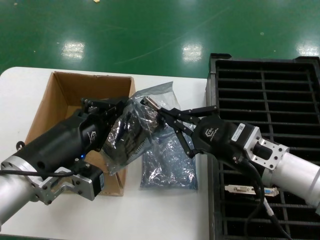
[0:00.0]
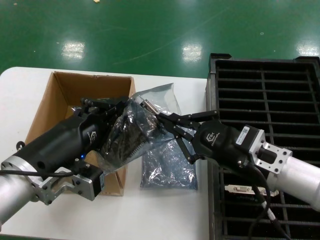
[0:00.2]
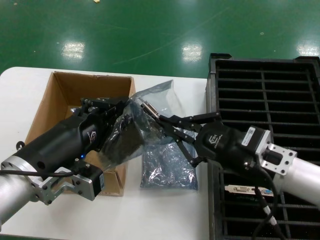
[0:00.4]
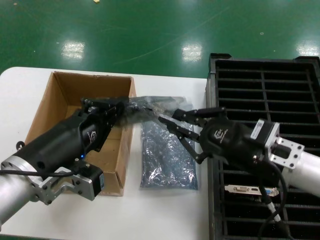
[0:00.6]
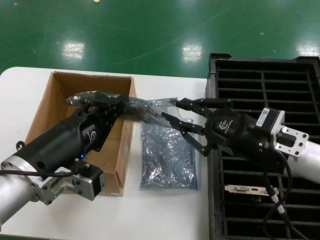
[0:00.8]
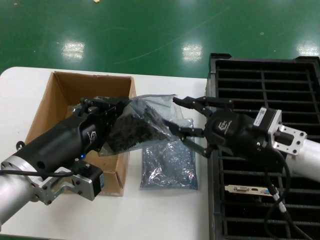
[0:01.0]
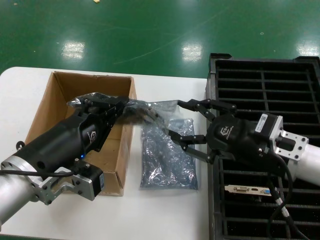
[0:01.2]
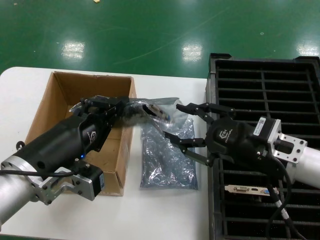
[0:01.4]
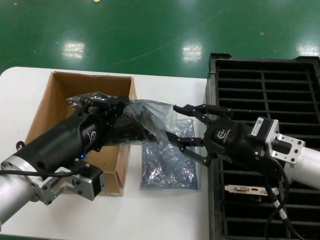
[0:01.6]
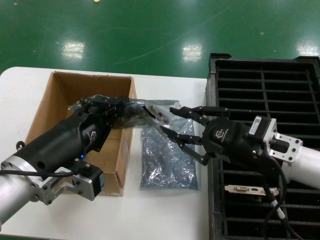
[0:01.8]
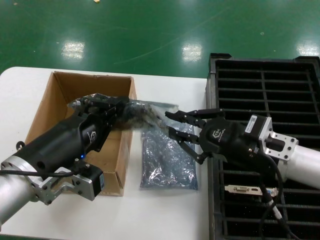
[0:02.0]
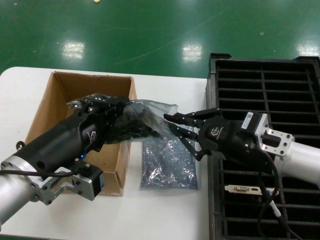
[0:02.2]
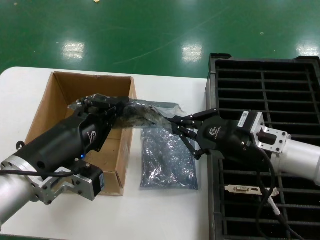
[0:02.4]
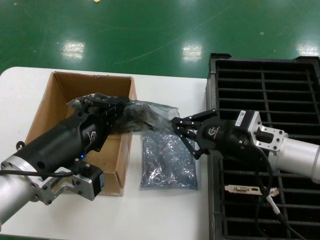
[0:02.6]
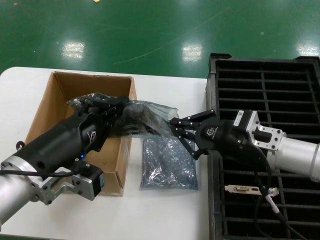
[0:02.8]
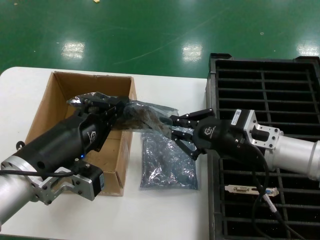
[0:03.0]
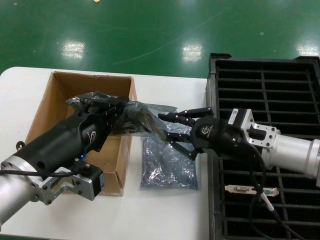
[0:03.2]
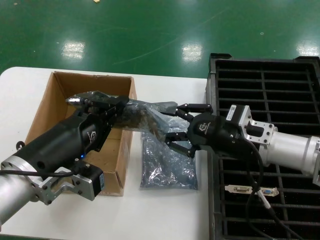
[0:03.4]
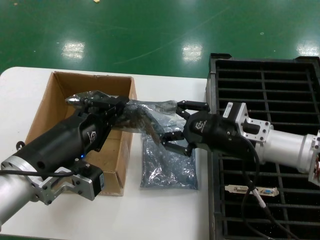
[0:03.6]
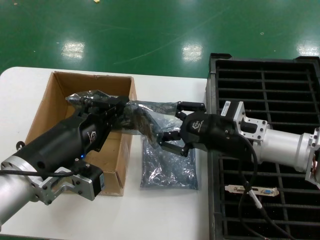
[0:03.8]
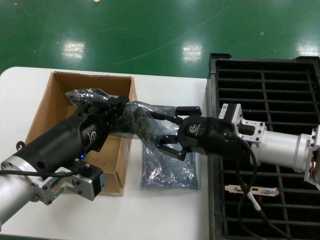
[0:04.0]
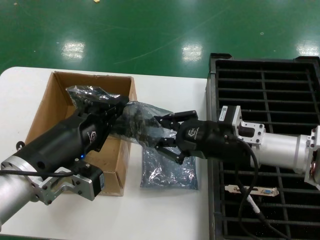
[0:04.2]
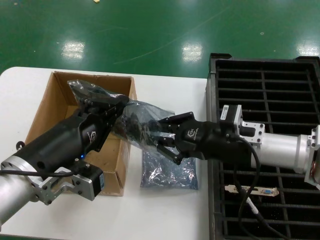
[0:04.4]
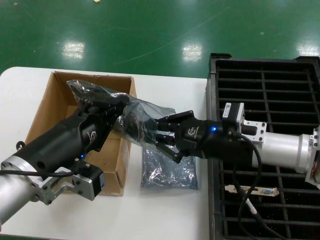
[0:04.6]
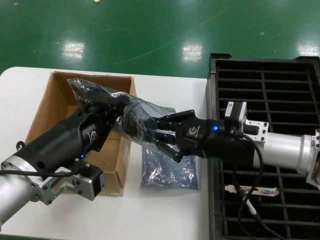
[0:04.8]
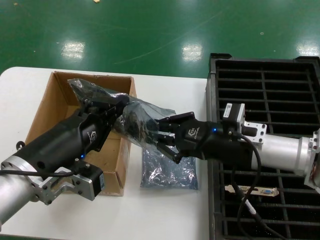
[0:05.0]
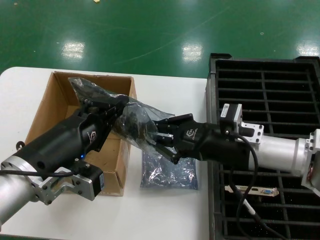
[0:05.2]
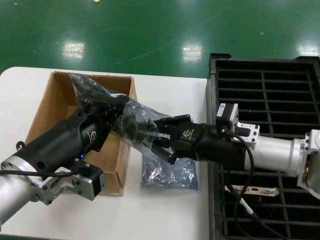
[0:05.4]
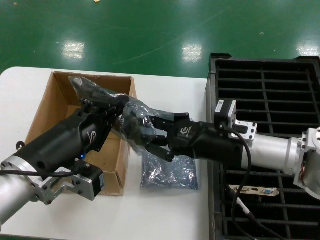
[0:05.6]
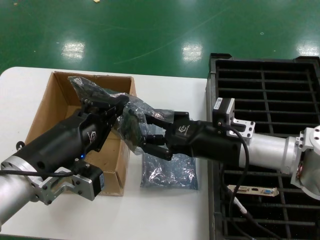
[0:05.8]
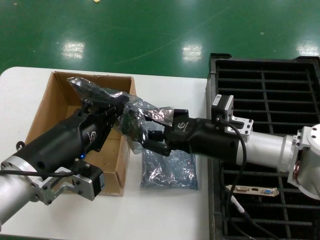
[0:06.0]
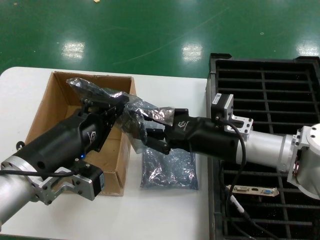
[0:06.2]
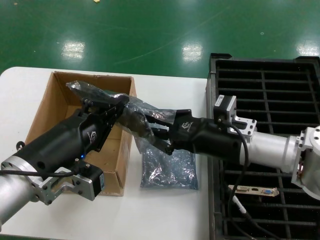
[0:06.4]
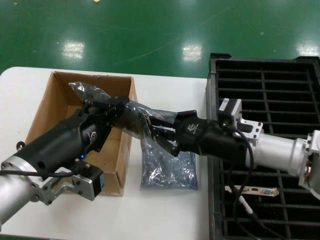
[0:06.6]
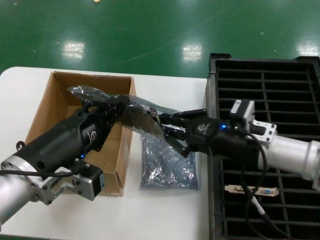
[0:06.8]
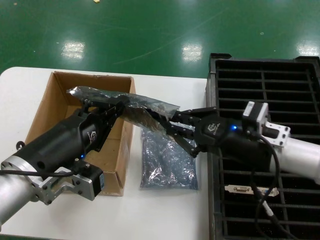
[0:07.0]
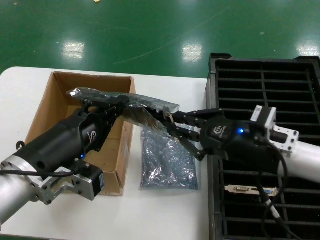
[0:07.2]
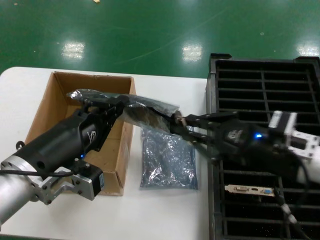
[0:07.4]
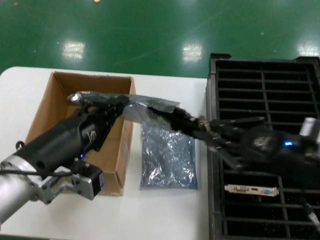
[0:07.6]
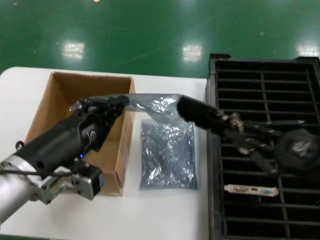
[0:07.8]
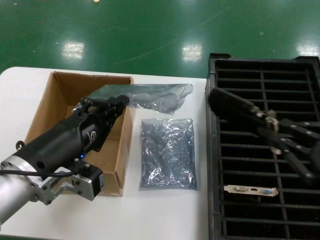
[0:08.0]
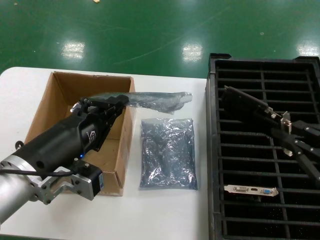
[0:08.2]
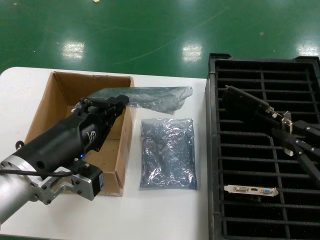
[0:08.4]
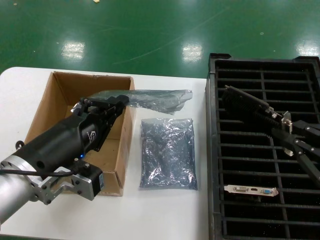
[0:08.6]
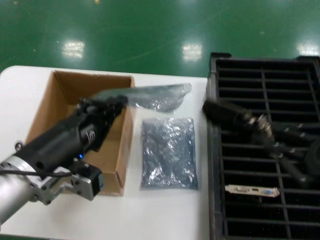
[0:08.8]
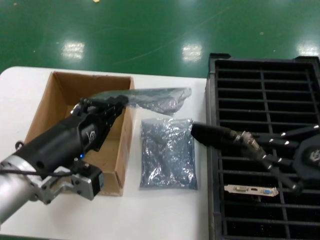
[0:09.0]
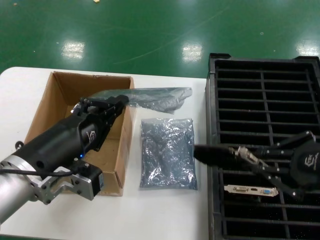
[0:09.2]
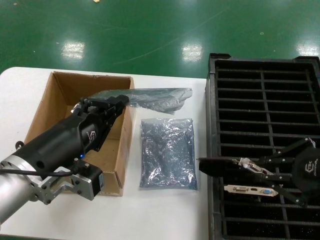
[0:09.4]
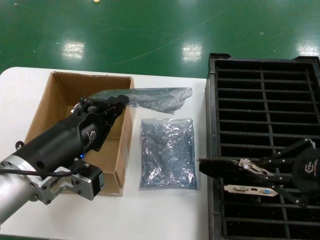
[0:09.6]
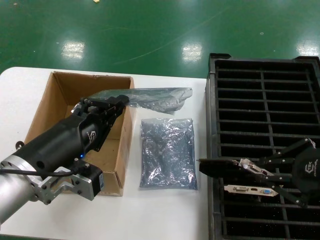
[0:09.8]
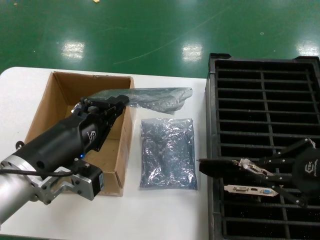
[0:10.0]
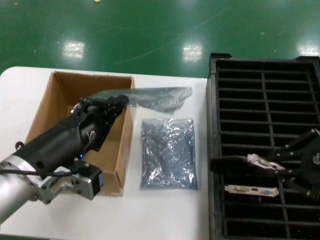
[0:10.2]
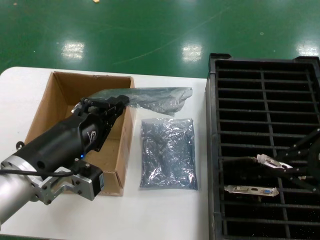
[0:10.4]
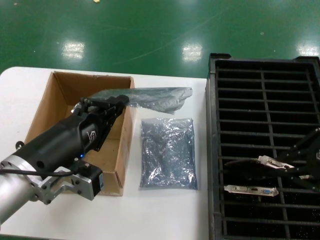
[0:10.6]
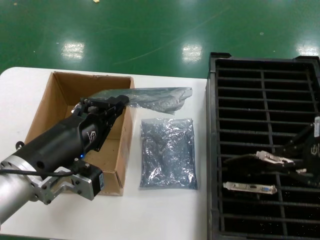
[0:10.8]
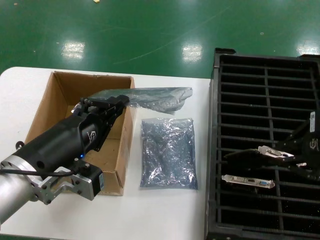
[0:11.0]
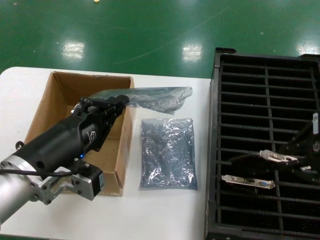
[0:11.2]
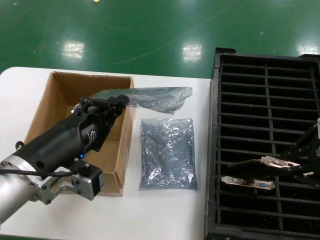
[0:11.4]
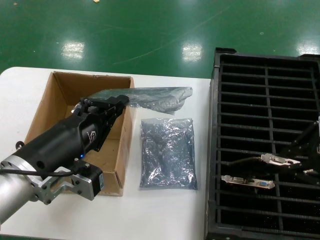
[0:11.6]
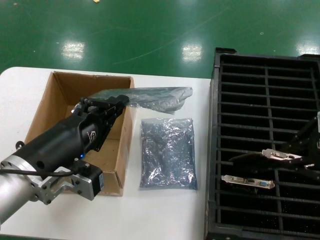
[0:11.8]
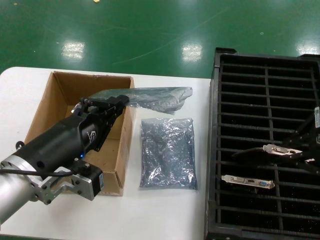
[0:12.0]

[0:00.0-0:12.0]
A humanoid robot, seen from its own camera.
Task of the whole recording: take out graphics card from box remove packaging put into black container.
Step, 0:00.0 to 0:07.8: Take out the hard disk of the bag.
0:00.0 to 0:01.6: The hands make only small movements.
0:01.6 to 0:03.0: The right hand ends up roughly 5 cm from where it was.
0:03.0 to 0:04.4: The hands make only small movements.
0:04.4 to 0:06.0: There are only small adjustments of the hands.
0:06.0 to 0:07.6: The right hand travels to the right and backward by roughly 15 cm.
0:07.6 to 0:09.0: The right hand moves backward, upward and to the right, approximately 10 cm.
0:09.0 to 0:10.4: The right hand shifts approximately 5 cm upward.
0:10.4 to 0:12.0: There are only small adjustments of the hands.

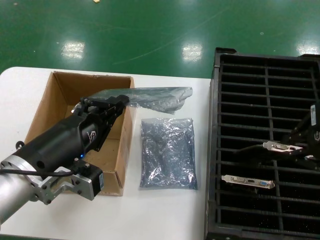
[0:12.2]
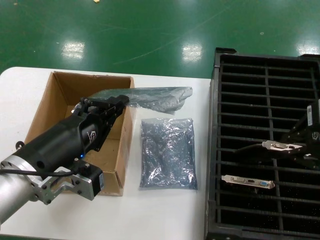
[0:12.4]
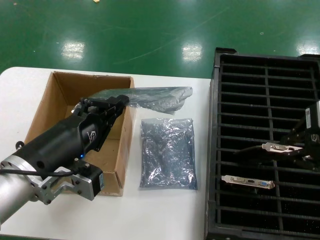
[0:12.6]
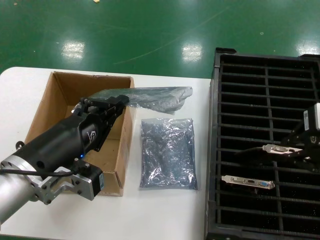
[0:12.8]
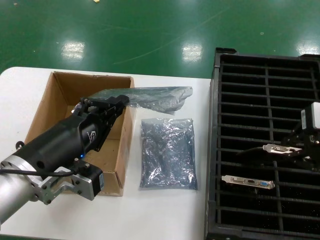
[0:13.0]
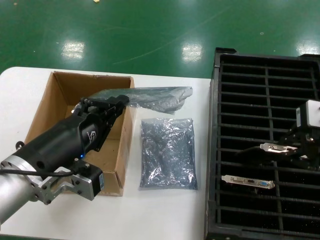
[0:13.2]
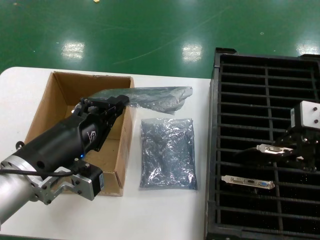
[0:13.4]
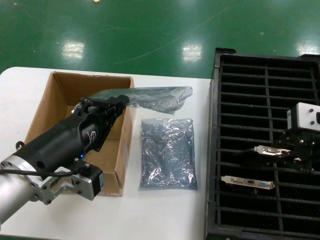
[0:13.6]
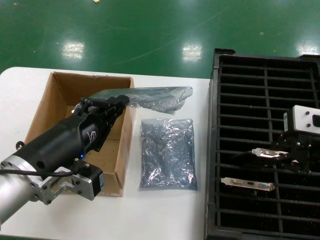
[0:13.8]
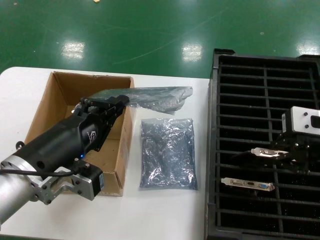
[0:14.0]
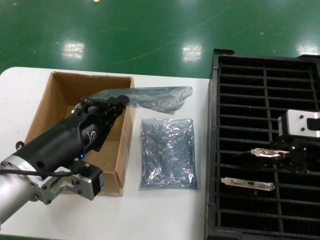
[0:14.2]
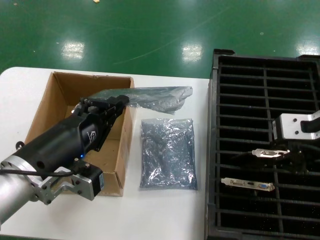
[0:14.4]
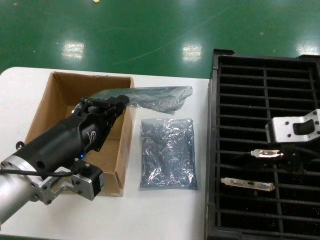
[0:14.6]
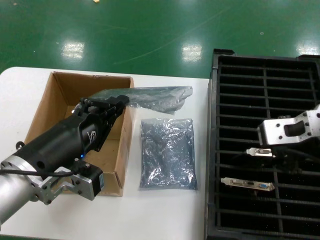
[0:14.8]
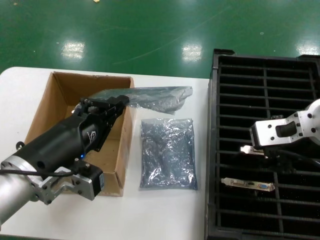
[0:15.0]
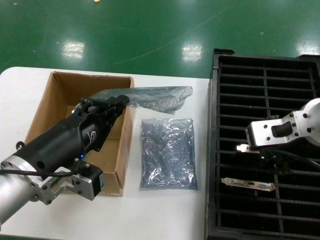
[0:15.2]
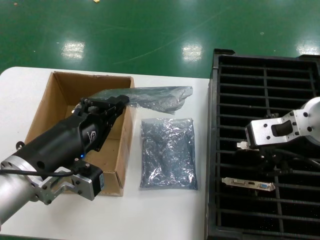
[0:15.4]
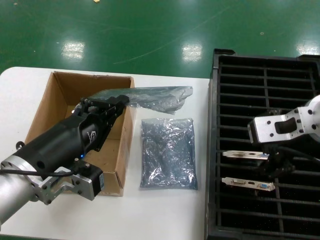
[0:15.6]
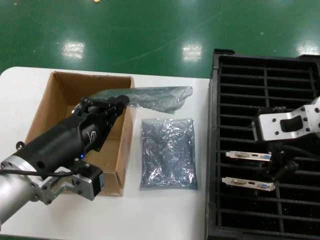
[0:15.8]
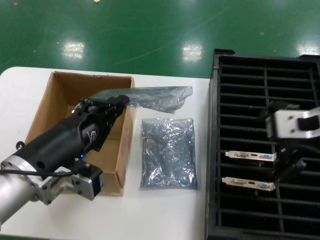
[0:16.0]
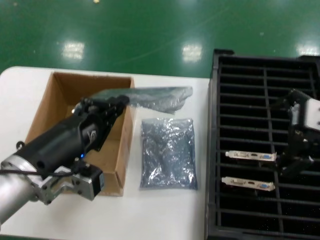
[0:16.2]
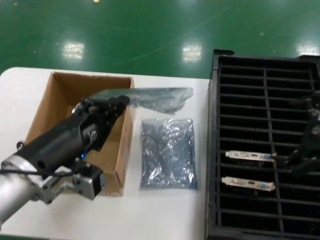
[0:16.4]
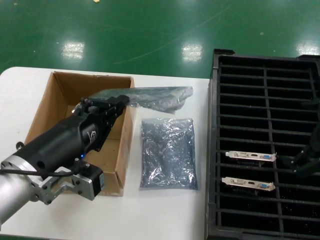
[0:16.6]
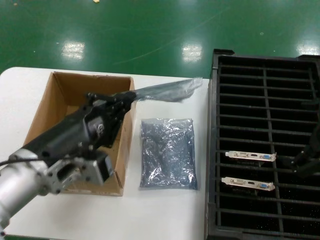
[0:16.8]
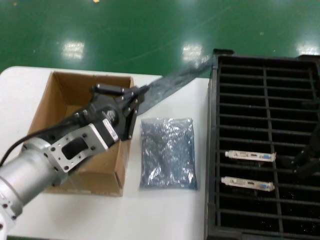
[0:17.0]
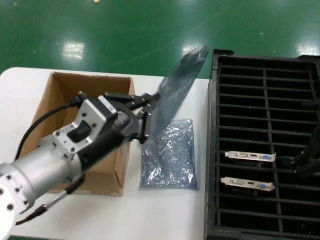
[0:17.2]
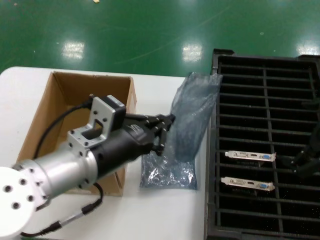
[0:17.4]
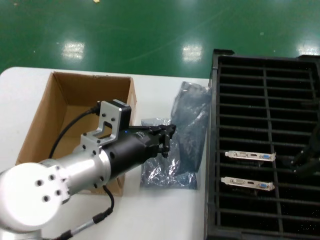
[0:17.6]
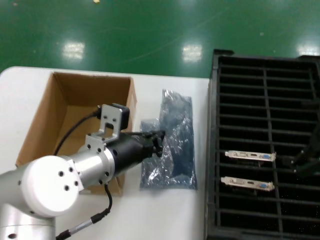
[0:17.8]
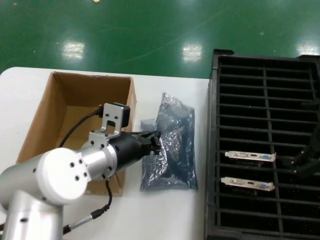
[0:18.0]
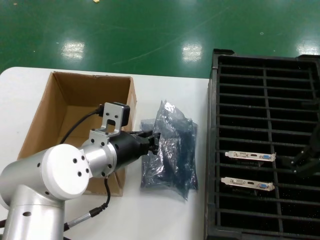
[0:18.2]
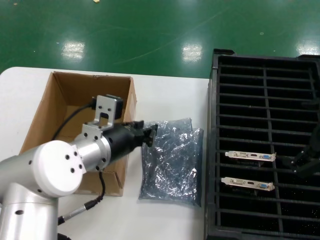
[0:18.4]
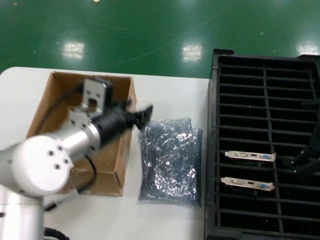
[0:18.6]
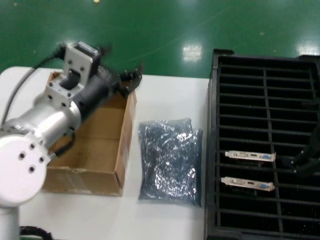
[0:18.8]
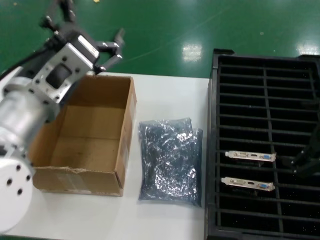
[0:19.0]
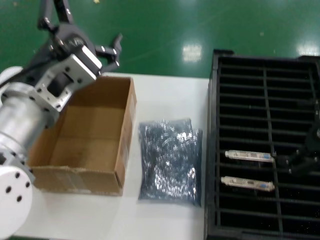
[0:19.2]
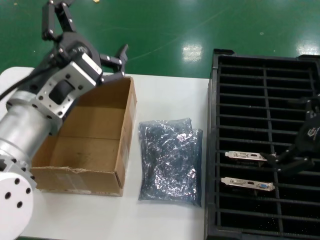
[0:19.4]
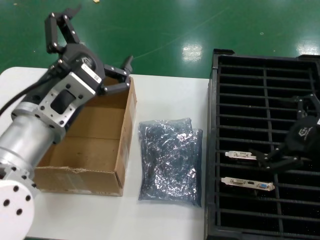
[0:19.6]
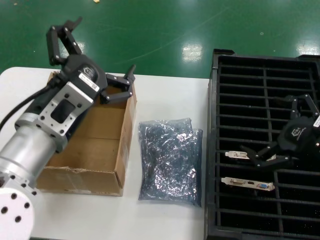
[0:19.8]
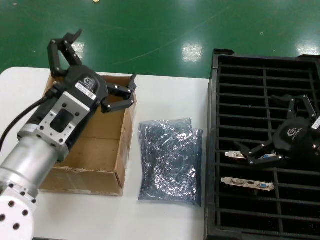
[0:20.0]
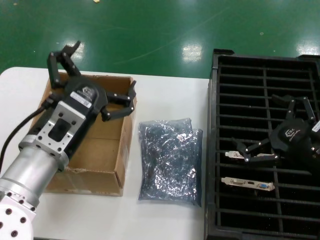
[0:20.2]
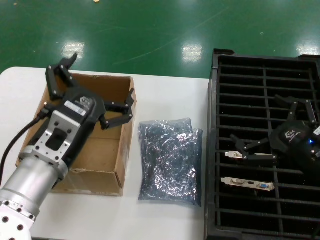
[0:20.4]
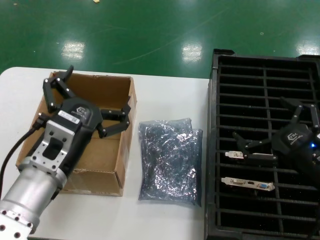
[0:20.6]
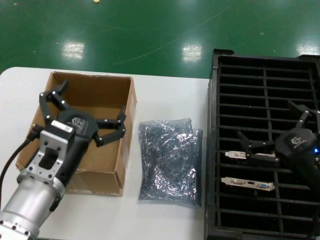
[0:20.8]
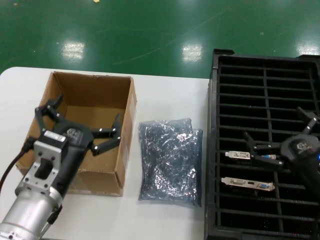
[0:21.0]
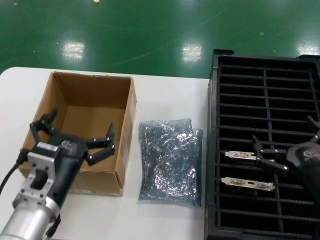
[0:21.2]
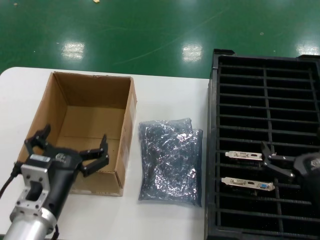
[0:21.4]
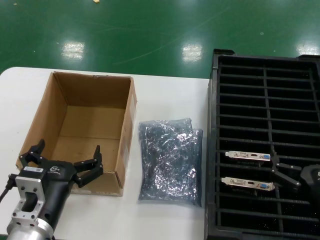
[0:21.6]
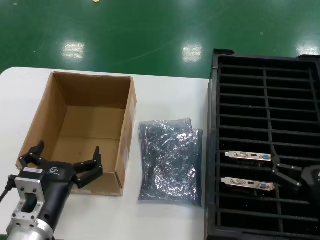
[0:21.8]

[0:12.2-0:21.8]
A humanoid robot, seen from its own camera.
Task of the whole recording: take out graphics card from box remove packaging put into black container.
Step, 0:12.2 to 0:16.0: Place the hard disk in the hard disk enclosure.
Step, 0:16.2 to 0:18.6: Place the down the bag.
0:12.2 to 0:13.8: The hands make only small movements.
0:13.8 to 0:15.4: The right hand goes about 5 cm to the left.
0:15.4 to 0:17.0: The right hand heads to the right, covering about 15 cm.
0:17.0 to 0:18.6: The left hand shifts approximately 10 cm forward.
0:18.6 to 0:20.2: The right hand moves downward, about 10 cm. The left hand is displaced backward by some 5 cm, and moves about 5 cm upward and comes back.
0:20.2 to 0:21.8: The right hand shifts roughly 15 cm downward and backward, while the left hand goes roughly 15 cm downward.
